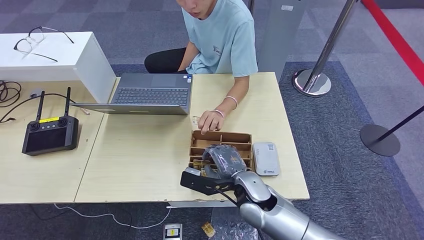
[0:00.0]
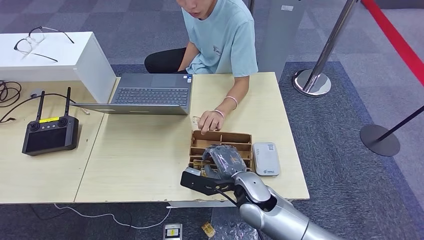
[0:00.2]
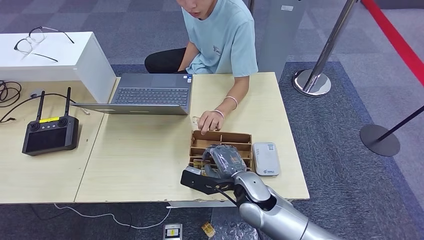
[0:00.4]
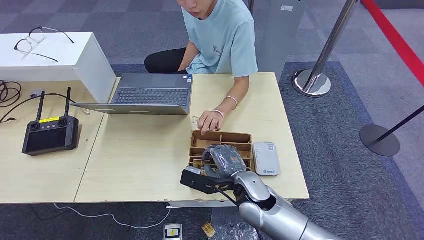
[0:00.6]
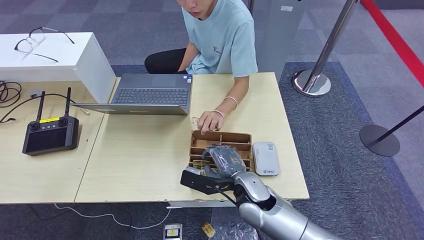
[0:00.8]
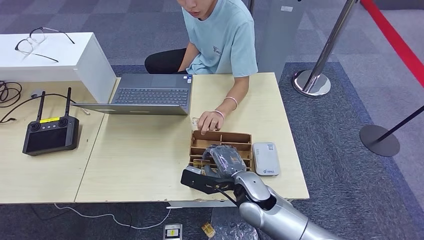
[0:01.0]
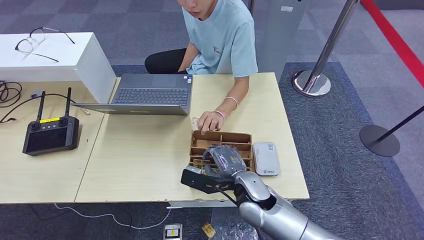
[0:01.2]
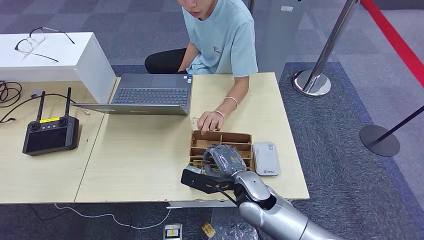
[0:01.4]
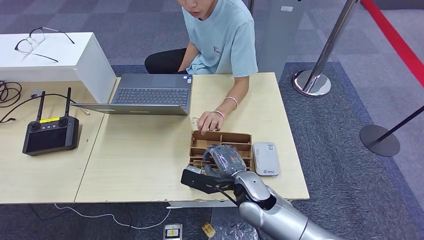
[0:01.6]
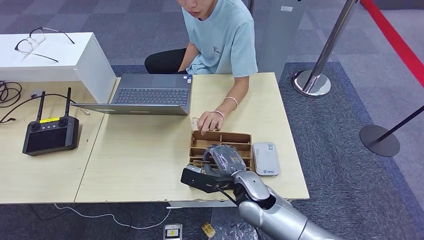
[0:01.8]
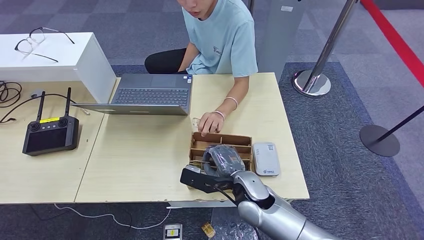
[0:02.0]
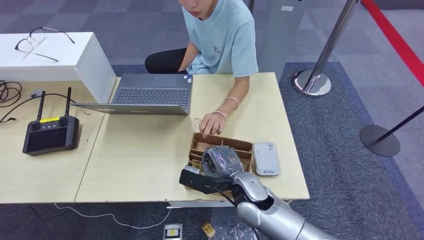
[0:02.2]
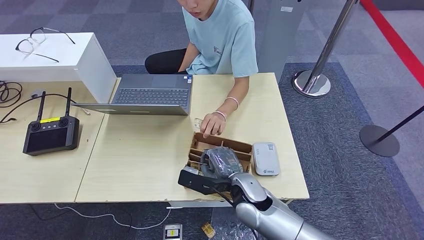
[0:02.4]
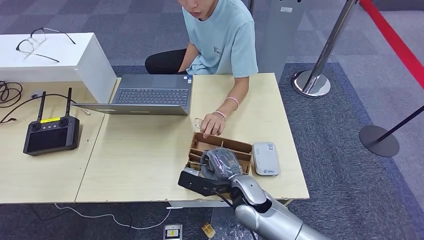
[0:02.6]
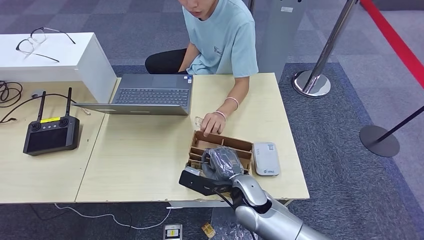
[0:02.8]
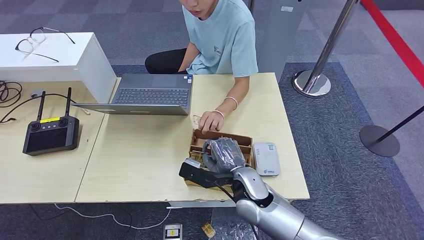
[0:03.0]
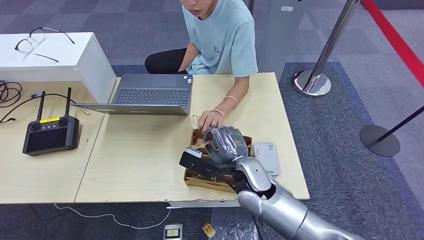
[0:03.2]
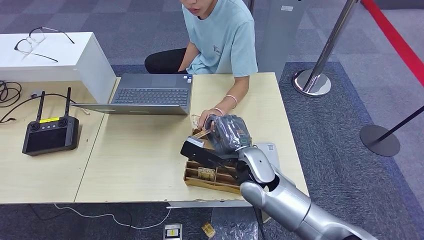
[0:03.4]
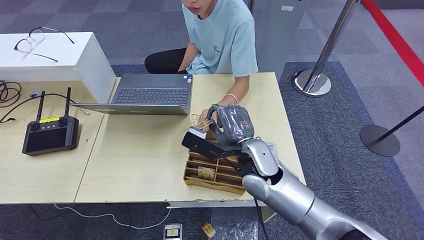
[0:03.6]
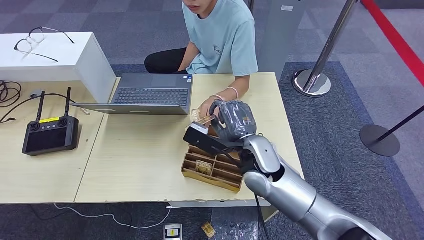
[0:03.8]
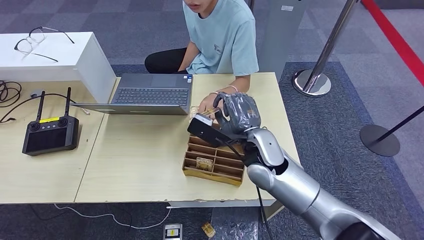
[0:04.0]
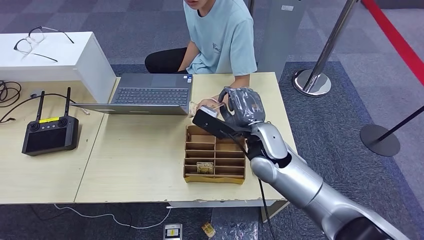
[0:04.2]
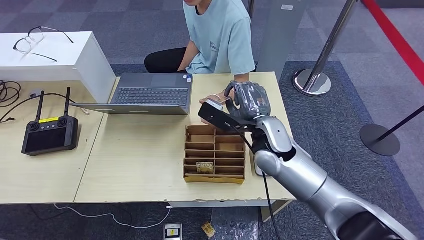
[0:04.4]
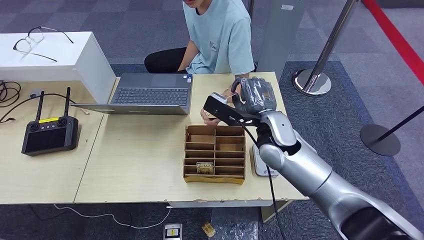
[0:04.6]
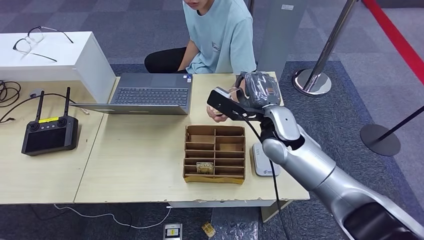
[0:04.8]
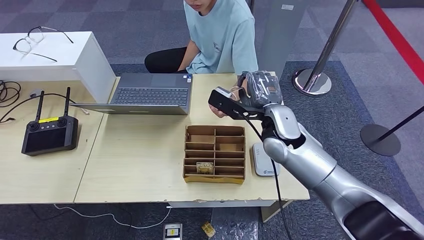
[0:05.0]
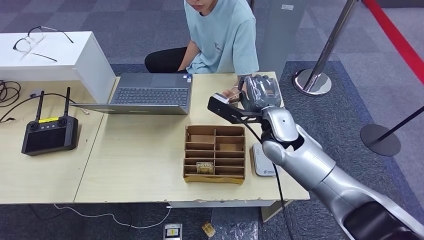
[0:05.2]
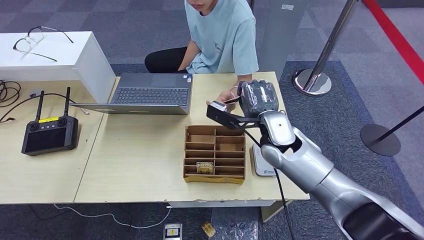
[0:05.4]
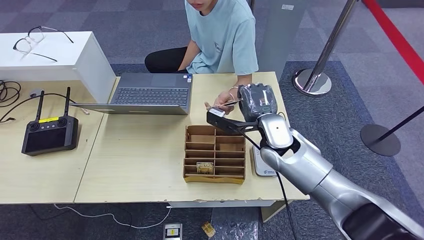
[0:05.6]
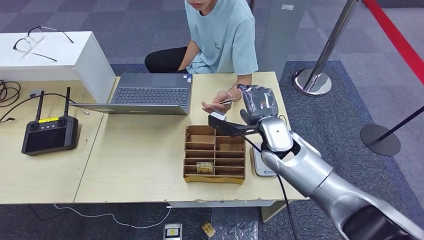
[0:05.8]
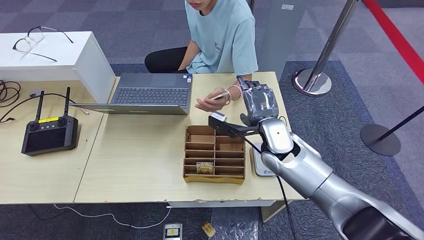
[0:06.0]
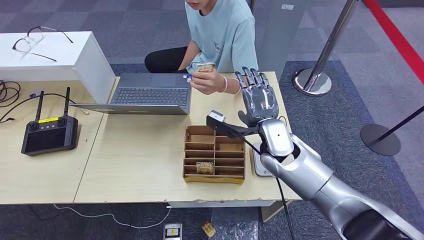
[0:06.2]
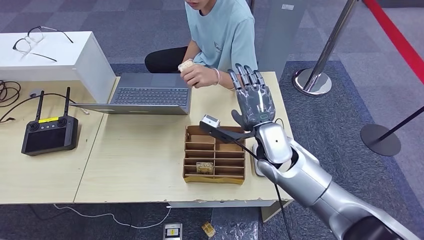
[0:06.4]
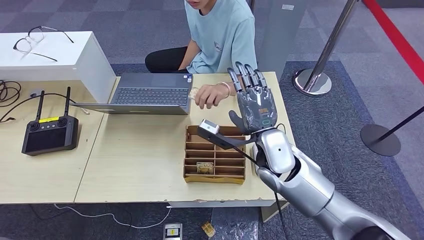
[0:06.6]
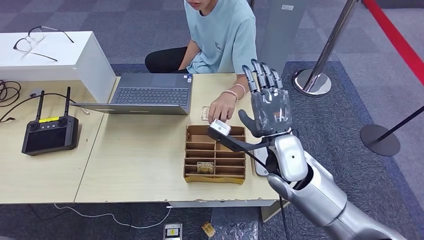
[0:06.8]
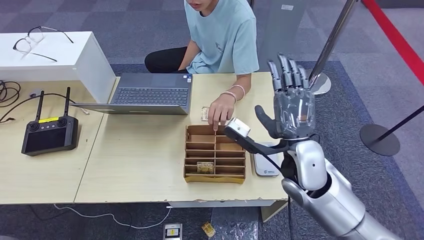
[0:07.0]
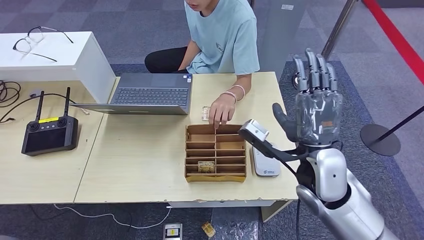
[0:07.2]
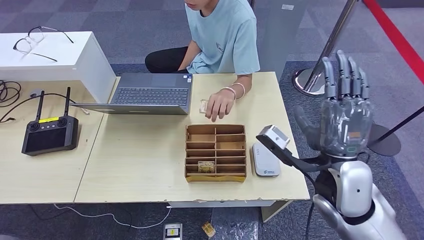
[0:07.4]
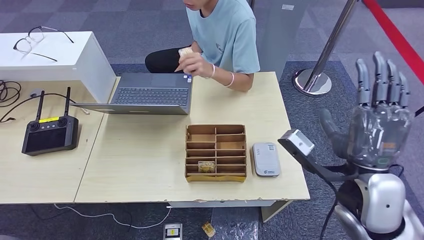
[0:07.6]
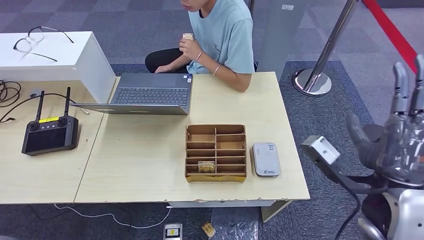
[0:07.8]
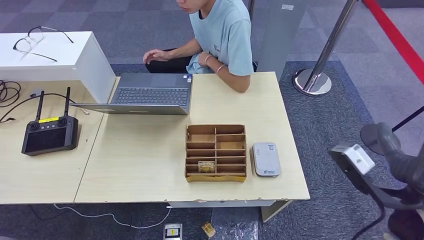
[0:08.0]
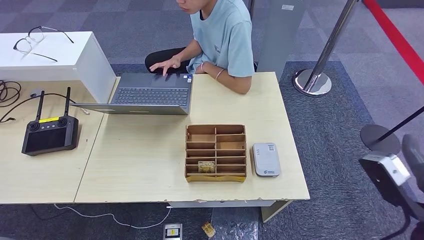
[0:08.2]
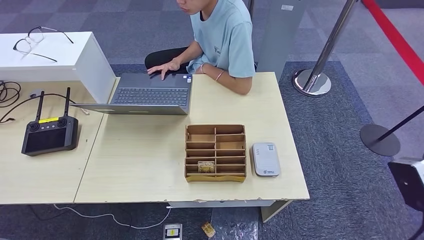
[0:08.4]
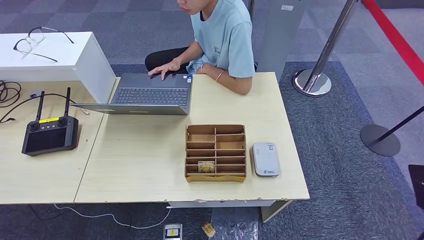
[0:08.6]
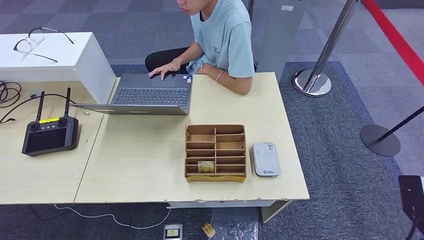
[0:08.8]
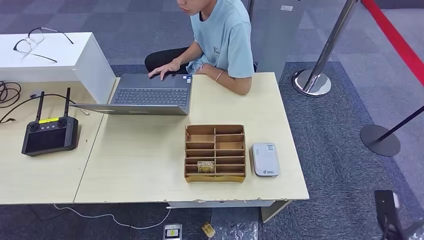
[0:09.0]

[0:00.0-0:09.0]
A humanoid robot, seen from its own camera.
Step, 0:00.0 to 0:03.2: Pick up the room key from the key card box.
Step, 0:03.4 to 0:08.8: Hand the room key to the person.
0:00.0 to 0:01.6: The two hands keep their place.
0:01.6 to 0:03.0: The hands make only small movements.
0:03.0 to 0:04.4: The right hand is displaced upward and forward by some 15 cm.
0:06.0 to 0:07.6: The right hand goes some 20 cm backward, to the right and upward.
0:07.6 to 0:09.0: The right hand shifts some 30 cm downward and to the right.
